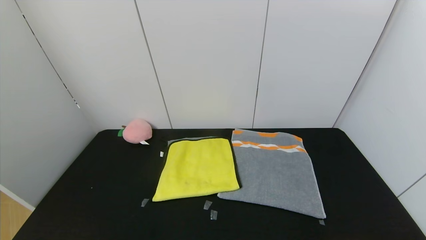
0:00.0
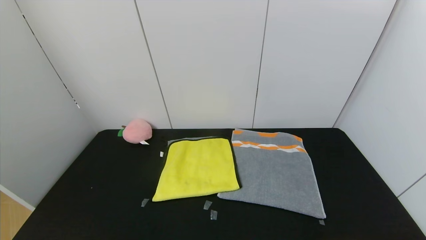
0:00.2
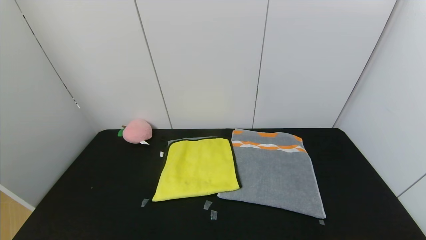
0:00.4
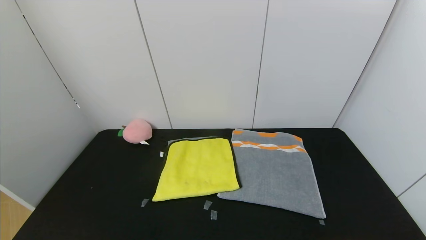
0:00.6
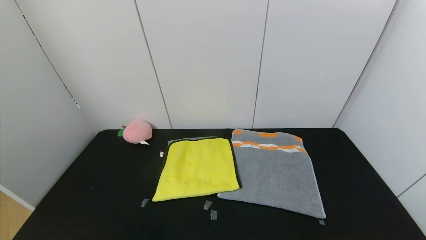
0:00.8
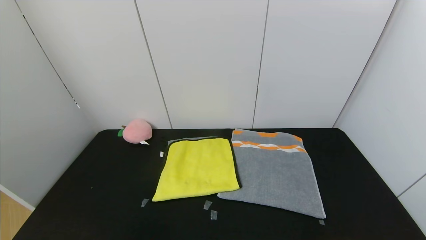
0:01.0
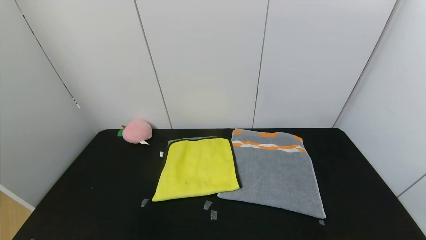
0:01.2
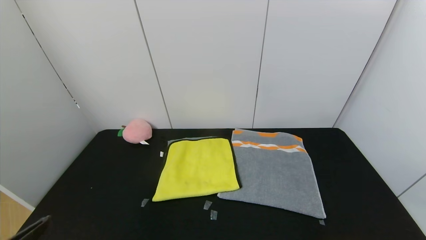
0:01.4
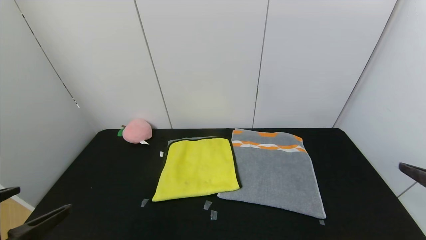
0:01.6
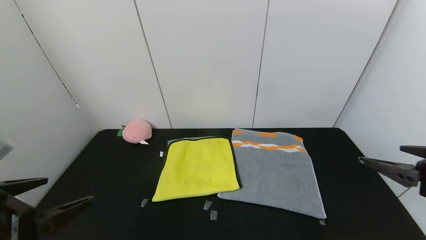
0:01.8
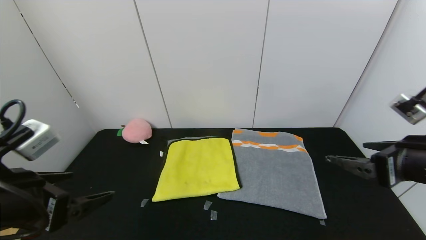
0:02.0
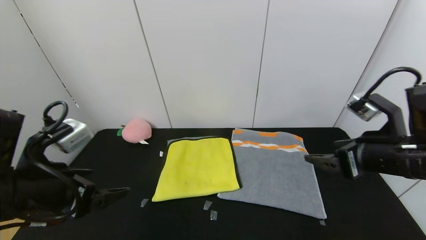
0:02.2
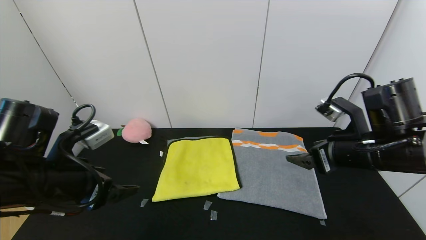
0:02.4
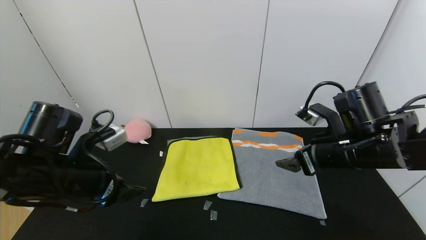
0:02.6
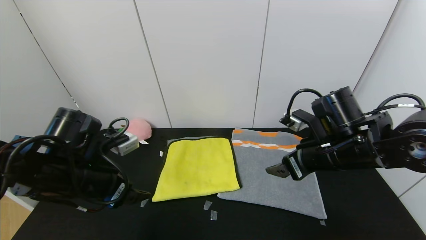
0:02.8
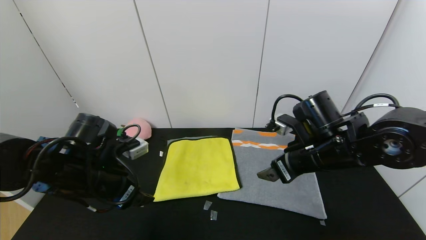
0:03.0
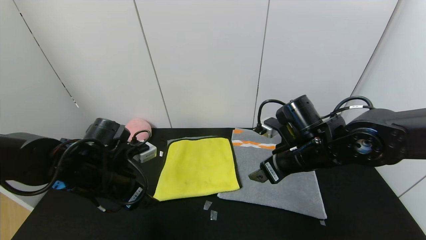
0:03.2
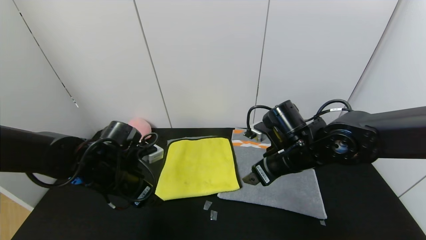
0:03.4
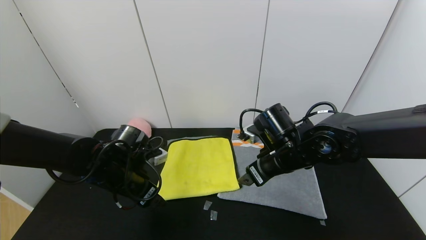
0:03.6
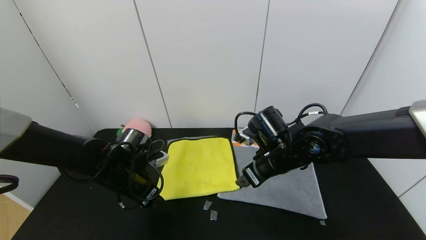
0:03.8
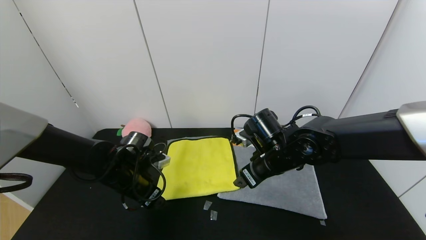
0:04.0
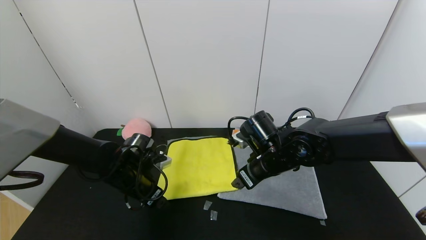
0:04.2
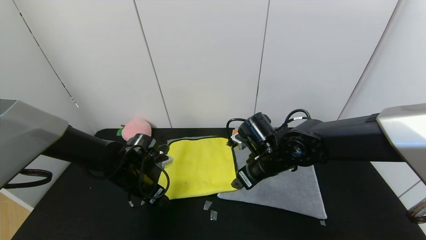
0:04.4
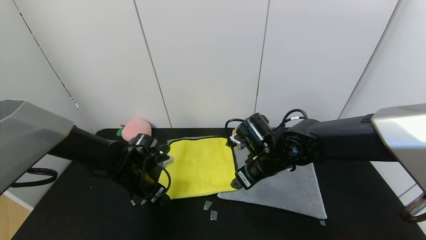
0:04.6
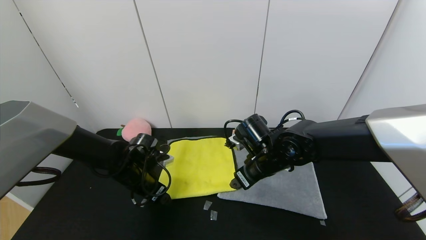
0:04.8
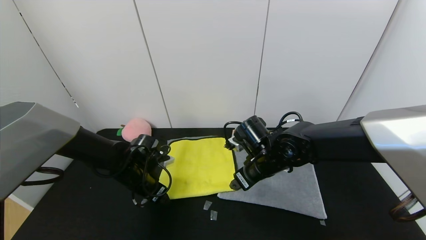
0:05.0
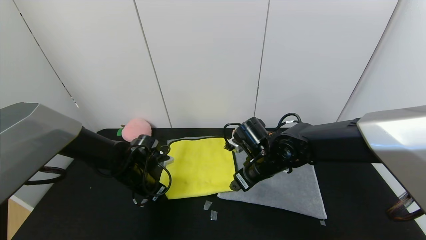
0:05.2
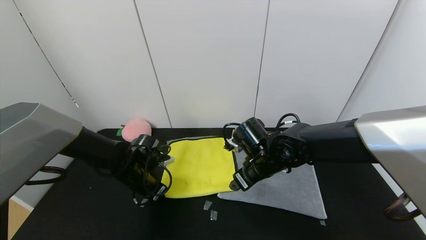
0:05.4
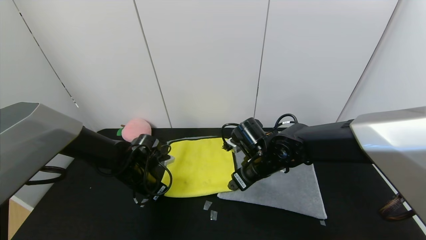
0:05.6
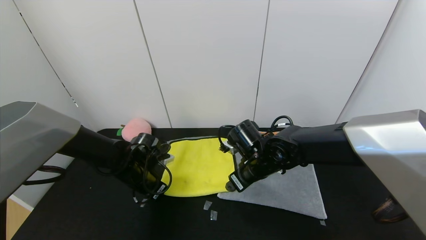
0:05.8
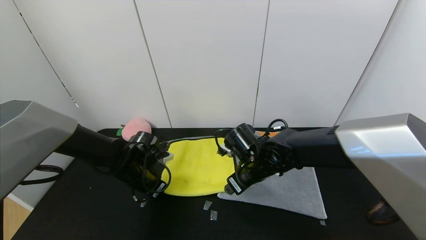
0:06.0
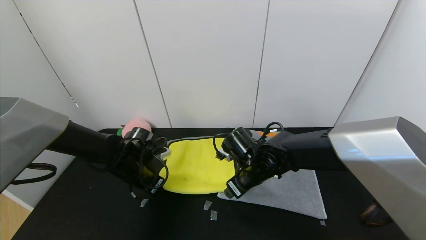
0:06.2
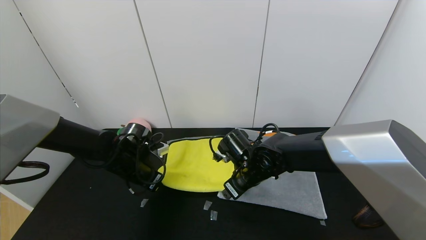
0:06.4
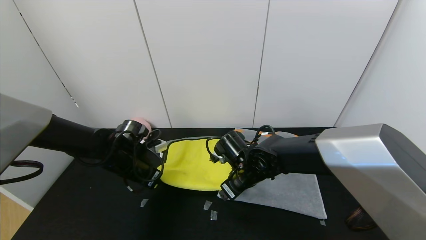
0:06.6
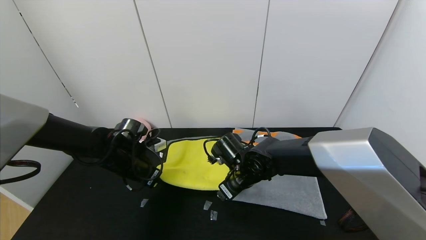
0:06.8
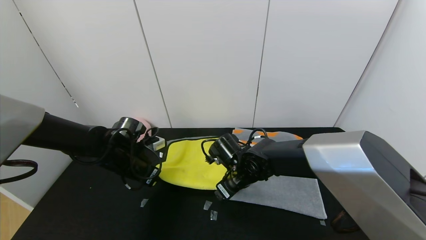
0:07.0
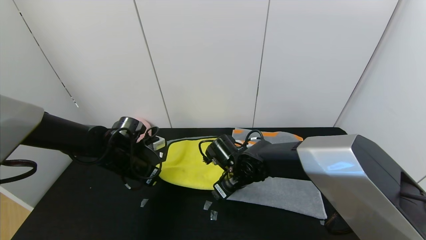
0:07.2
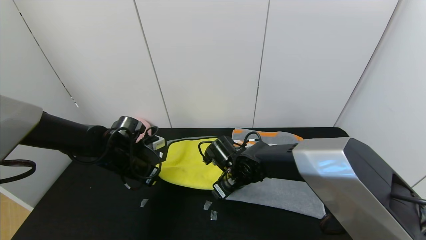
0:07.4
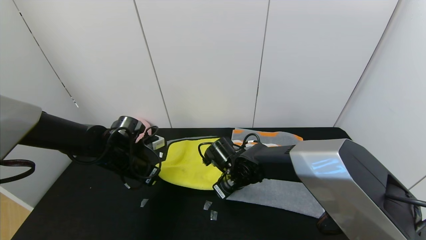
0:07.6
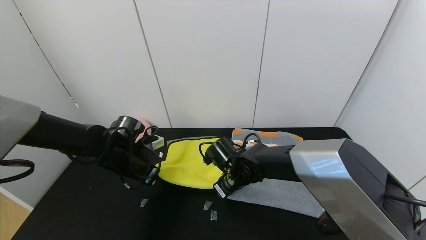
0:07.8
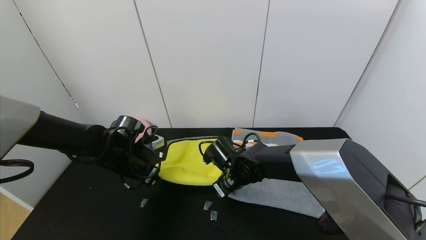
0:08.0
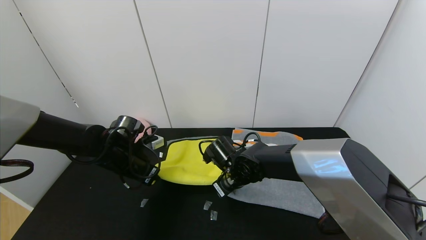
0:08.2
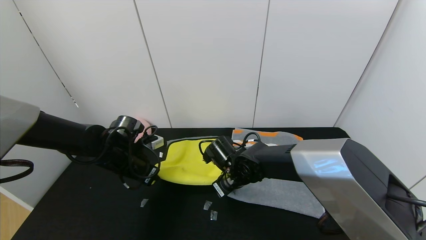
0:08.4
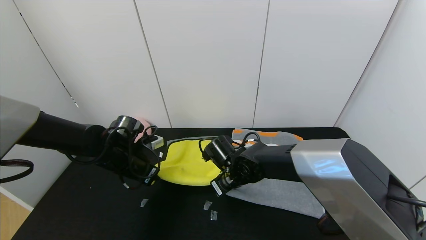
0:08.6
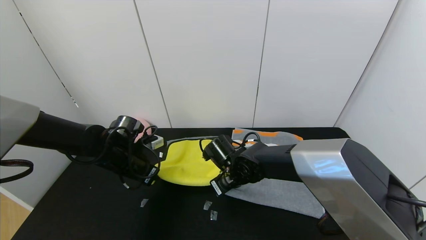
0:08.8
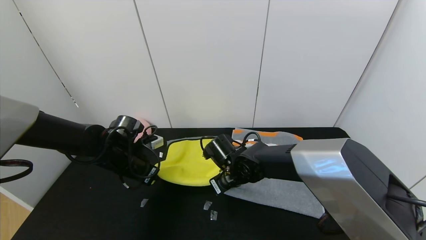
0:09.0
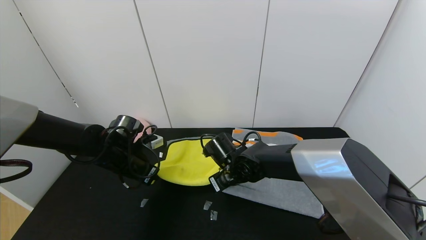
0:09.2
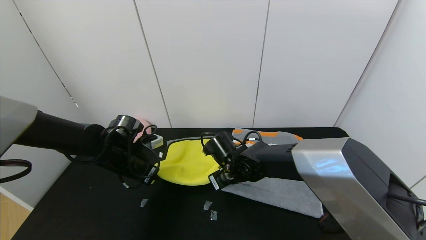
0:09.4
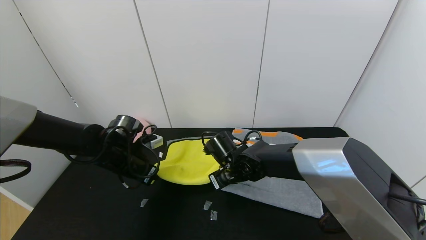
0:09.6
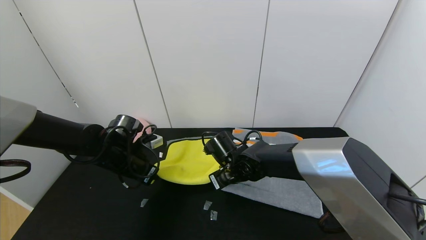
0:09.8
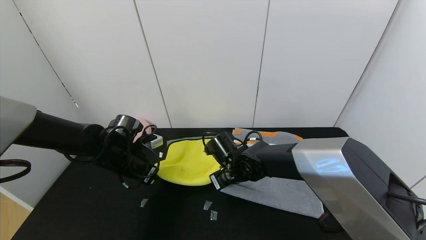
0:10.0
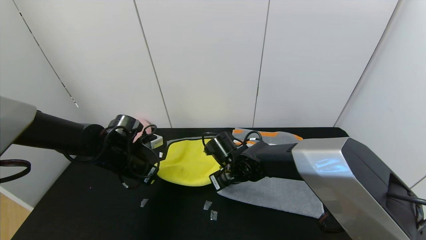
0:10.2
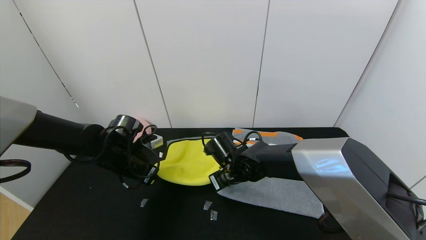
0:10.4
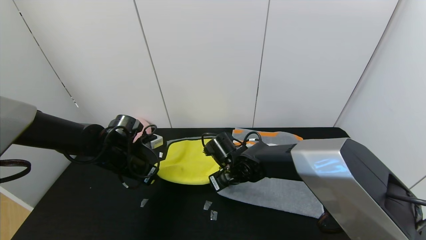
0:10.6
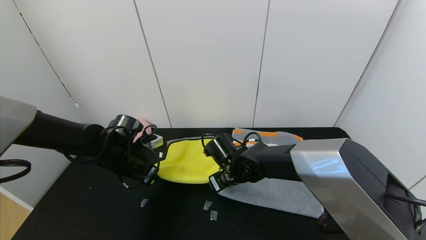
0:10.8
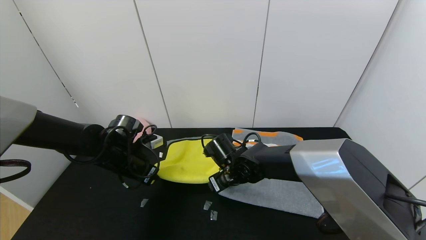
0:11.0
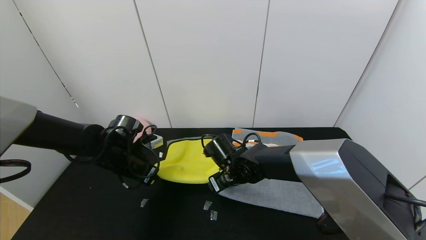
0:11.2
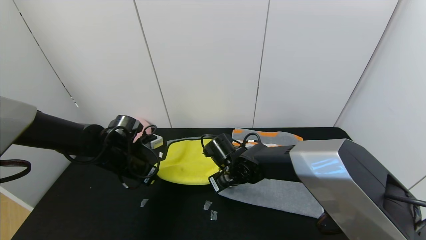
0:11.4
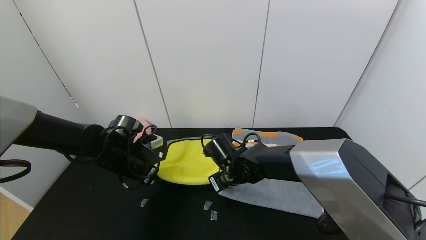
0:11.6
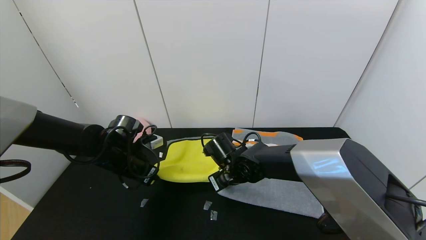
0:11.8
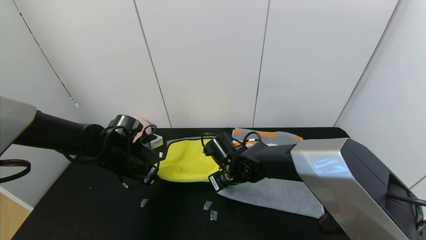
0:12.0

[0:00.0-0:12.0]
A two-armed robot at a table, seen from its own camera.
Task of the whole recording: Use the gripper to fold the yellow towel and grey towel in half twice,then put the yellow towel on the grey towel.
0:01.6 to 0:03.0: The left gripper moves forward, about 20 cm; the right gripper goes roughly 25 cm forward and to the left.
0:03.0 to 0:04.4: The right gripper shifts some 10 cm to the left and downward, while the left gripper heads downward and forward, covering about 10 cm.
0:04.4 to 0:06.0: The left gripper closes up.
0:06.0 to 0:07.6: The right gripper moves approximately 5 cm, and closes its fingers.
0:07.6 to 0:09.0: The right gripper closes.
0:09.0 to 0:10.4: The right gripper opens up.
0:10.4 to 0:12.0: The right gripper closes its fingers.

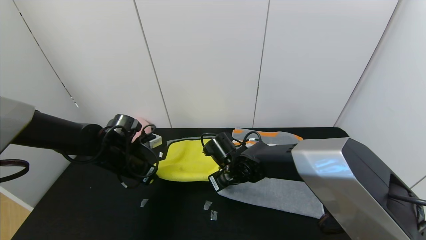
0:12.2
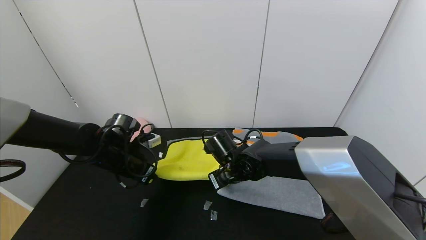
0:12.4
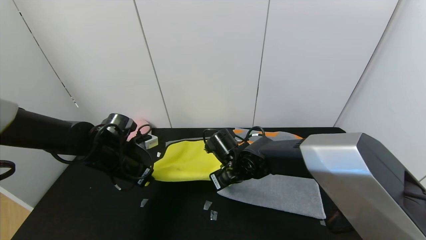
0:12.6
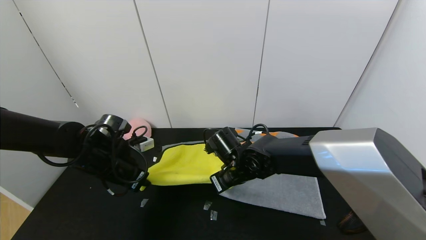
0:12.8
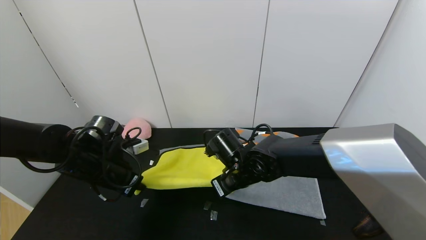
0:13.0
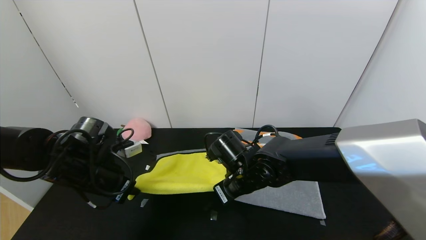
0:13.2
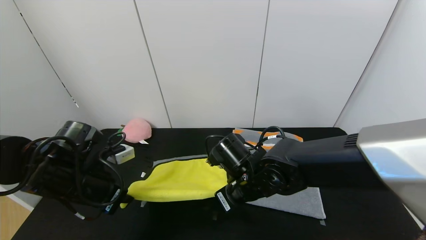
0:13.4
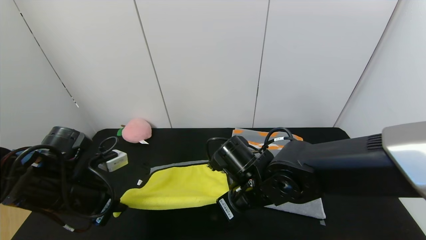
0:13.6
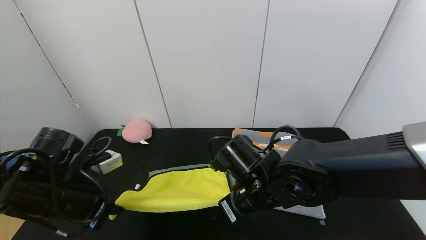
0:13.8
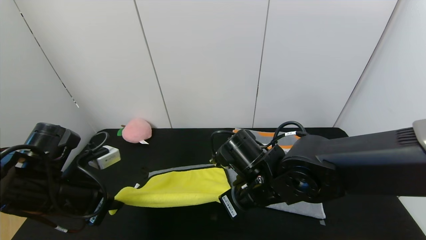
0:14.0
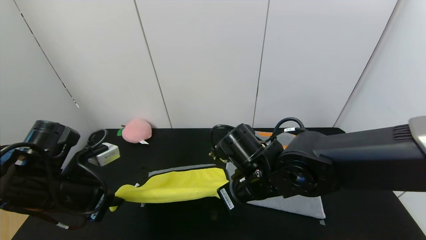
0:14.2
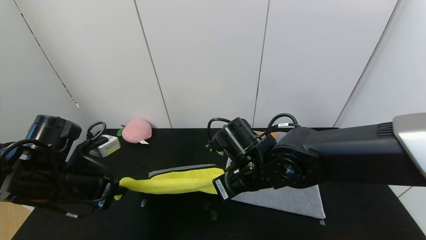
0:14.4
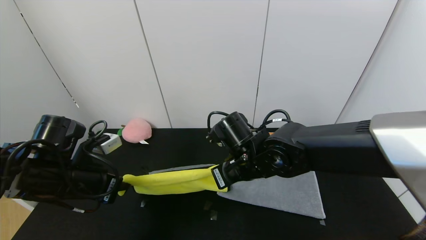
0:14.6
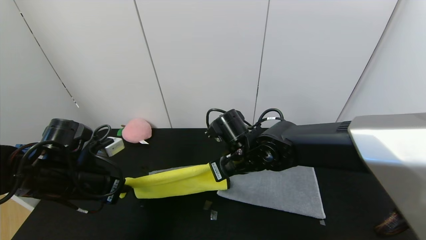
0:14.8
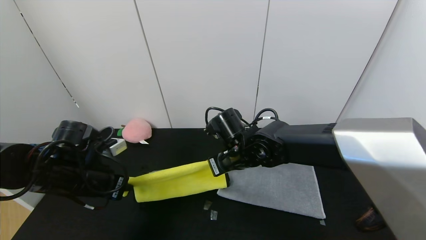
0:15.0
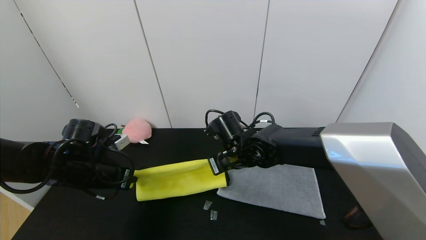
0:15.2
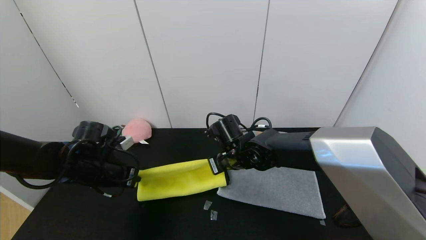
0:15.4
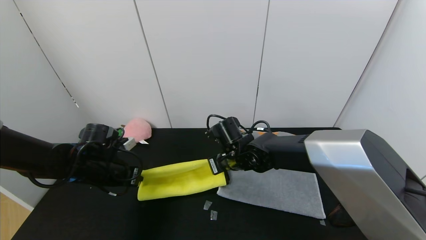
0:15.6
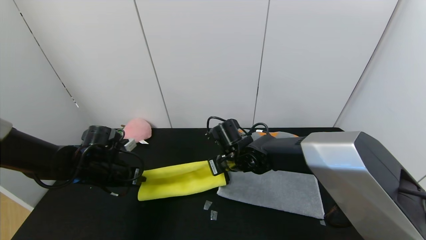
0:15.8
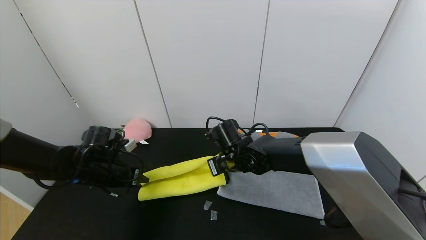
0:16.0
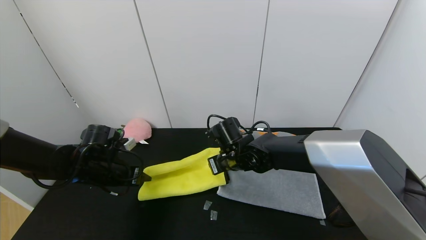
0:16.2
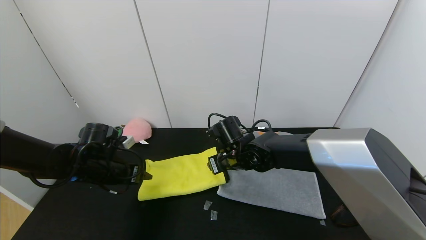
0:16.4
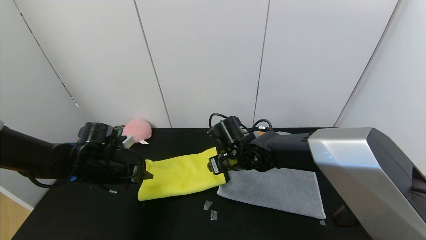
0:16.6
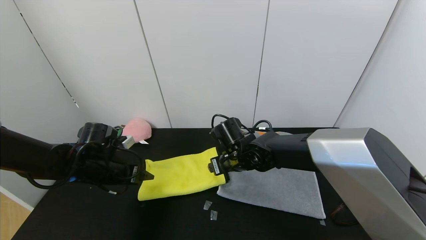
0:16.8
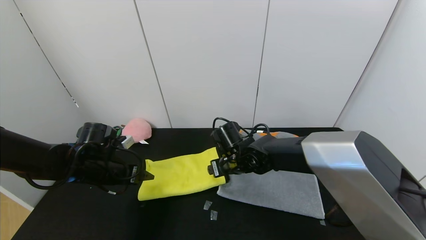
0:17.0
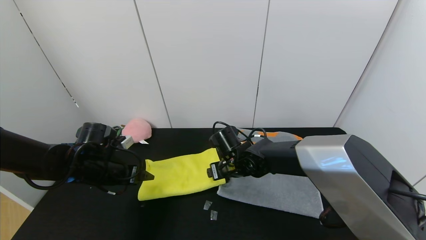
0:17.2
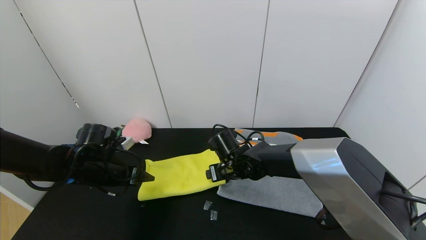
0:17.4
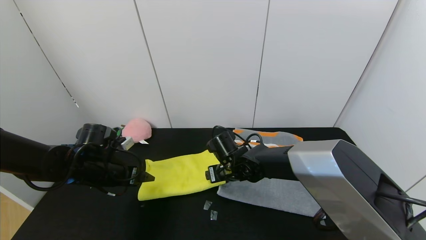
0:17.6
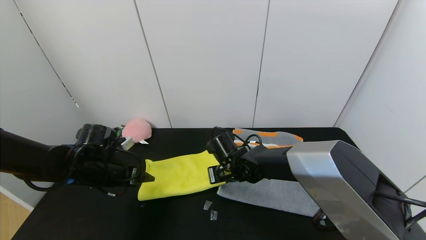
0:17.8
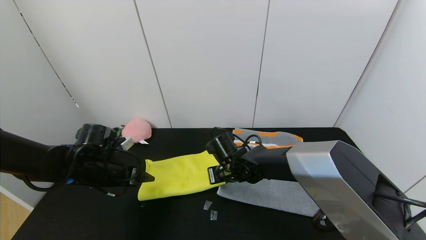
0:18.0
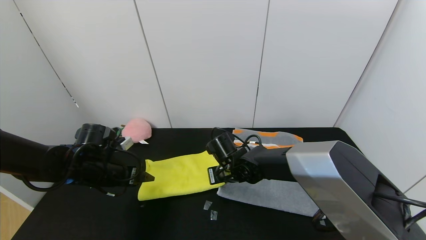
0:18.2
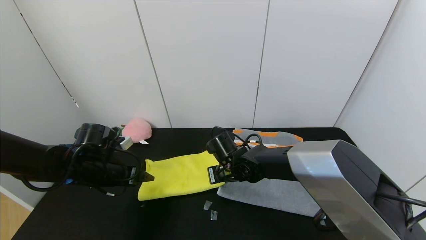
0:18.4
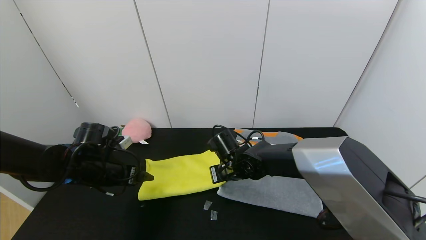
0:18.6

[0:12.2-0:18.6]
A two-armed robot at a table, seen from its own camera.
Task of the whole recording: Use the gripper to fold the yellow towel and grey towel in half twice,then put the yellow towel on the grey towel.
Step, 0:12.2 to 0:16.4: Fold the yellow towel upwards with the left gripper.
0:12.2 to 0:13.8: The right gripper shifts about 10 cm backward and upward, while the left gripper shifts roughly 15 cm backward.
0:13.8 to 0:15.4: The two grippers go roughly 10 cm forward.
0:15.4 to 0:17.0: The right gripper opens its fingers; the left gripper opens up.
0:17.0 to 0:18.6: The right gripper closes up.
